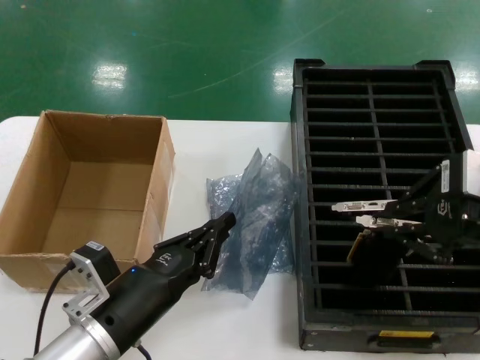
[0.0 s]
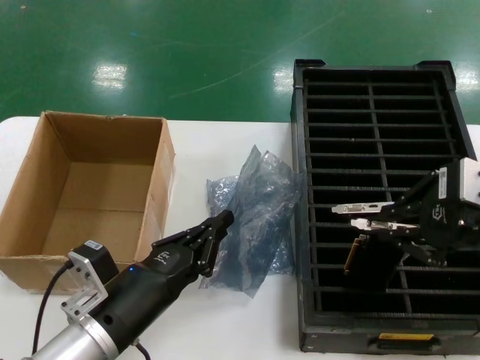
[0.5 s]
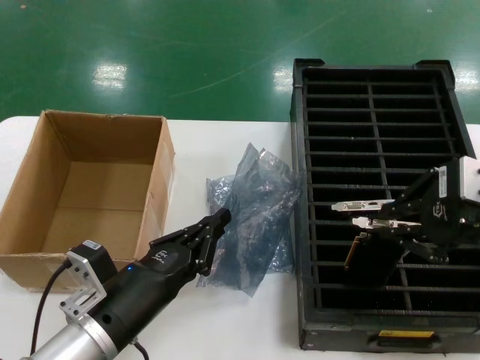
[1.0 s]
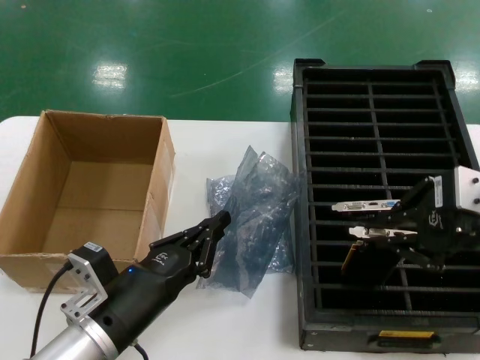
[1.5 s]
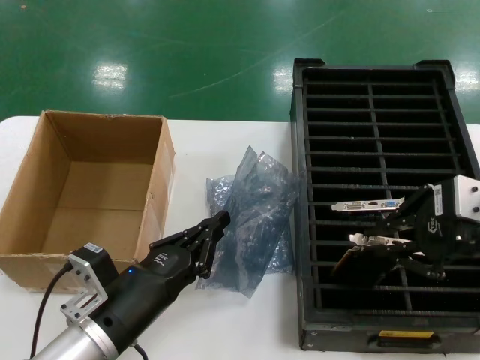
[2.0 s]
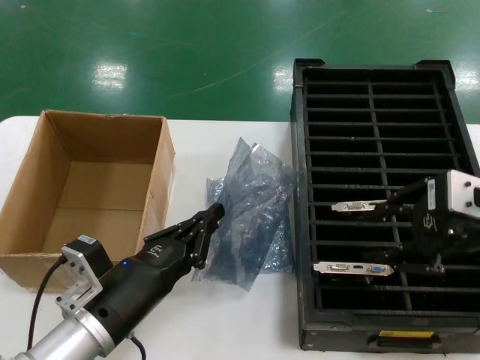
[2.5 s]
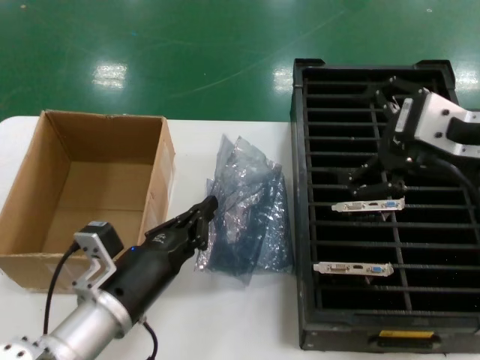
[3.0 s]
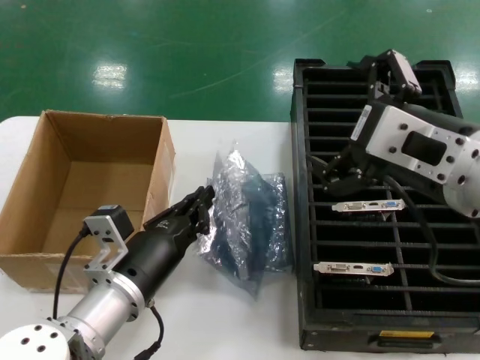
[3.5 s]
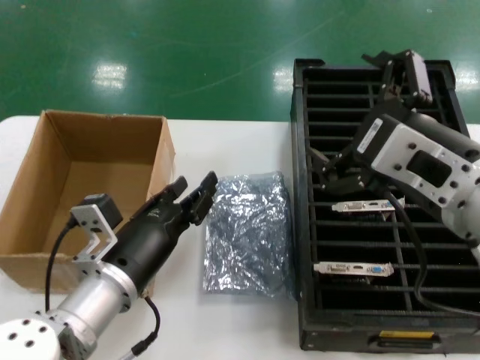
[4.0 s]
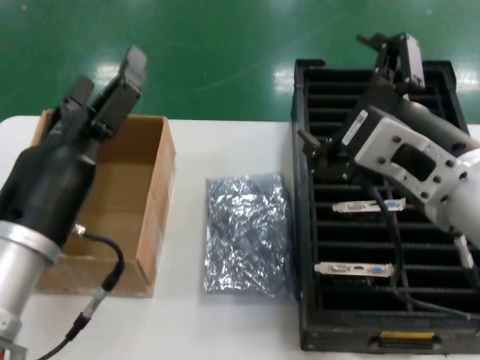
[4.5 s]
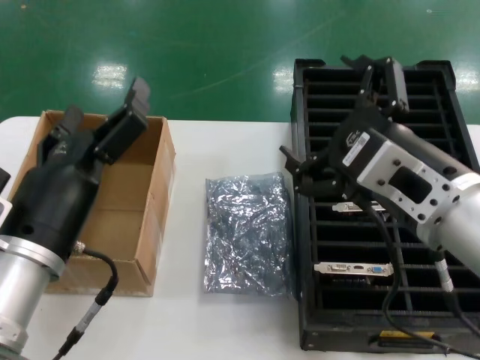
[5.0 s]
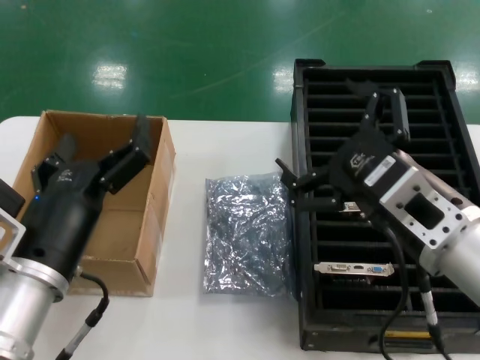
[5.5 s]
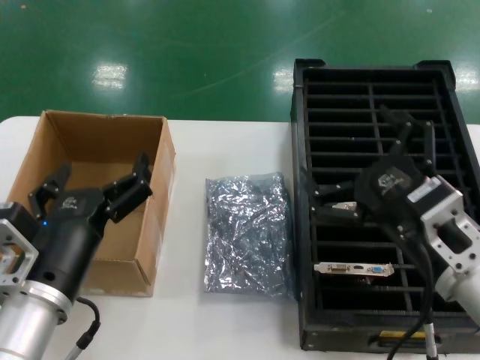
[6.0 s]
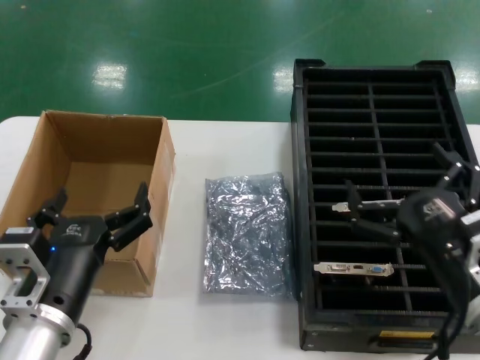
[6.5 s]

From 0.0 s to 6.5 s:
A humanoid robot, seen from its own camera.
Task of the whole recording: take out graphics card from box remove packaging put into black container.
Step, from 0.0 s to 2.0 s: Place the hard disk in the hard disk enclosure.
Step, from 2.5 s to 5.5 s: Place the down the bag.
From 0.0 s to 2.0 s: The hands make only small movements.
From 2.0 s to 4.5 s: The right hand travels to the left and backward by some 15 cm, while the left hand goes about 15 cm upward.
From 4.5 s to 6.5 s: The right hand goes approximately 15 cm downward and to the right; the left hand shifts approximately 10 cm downward.
